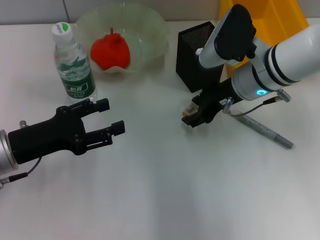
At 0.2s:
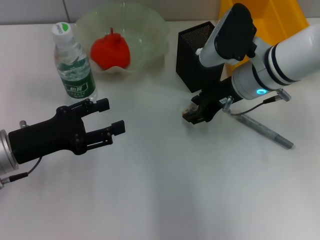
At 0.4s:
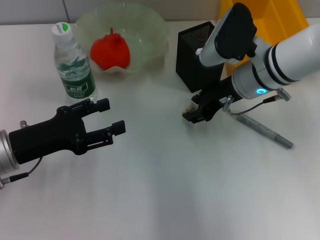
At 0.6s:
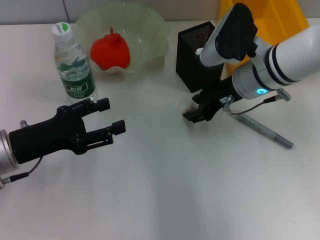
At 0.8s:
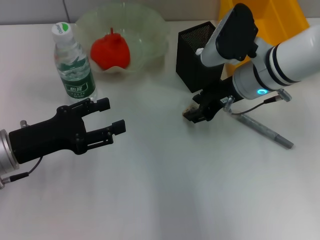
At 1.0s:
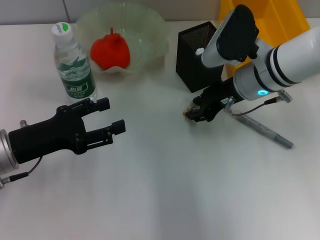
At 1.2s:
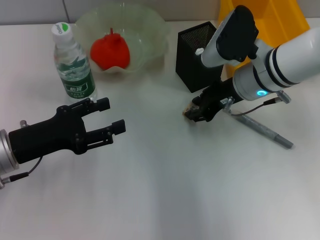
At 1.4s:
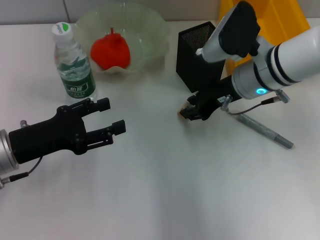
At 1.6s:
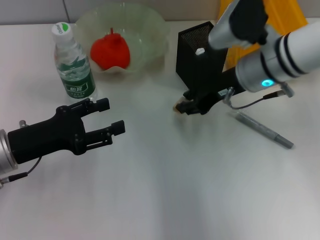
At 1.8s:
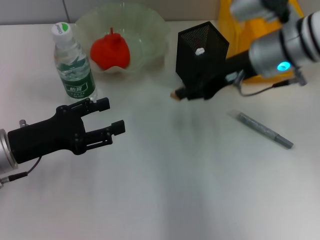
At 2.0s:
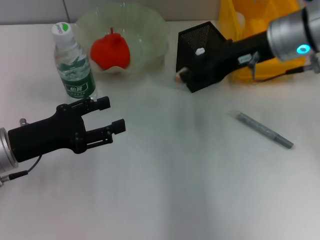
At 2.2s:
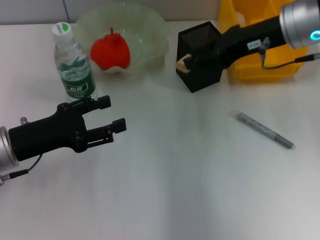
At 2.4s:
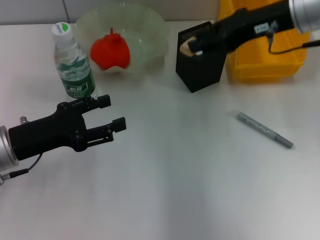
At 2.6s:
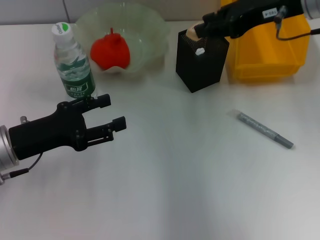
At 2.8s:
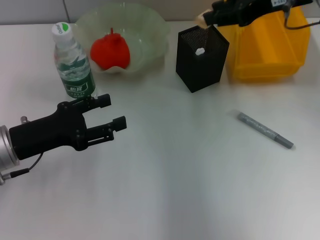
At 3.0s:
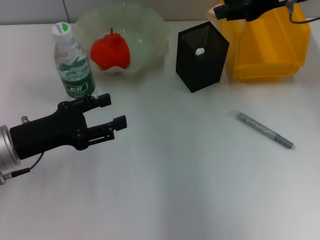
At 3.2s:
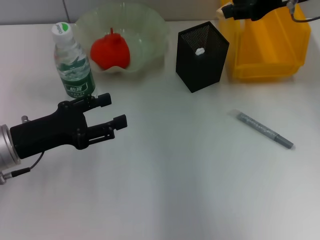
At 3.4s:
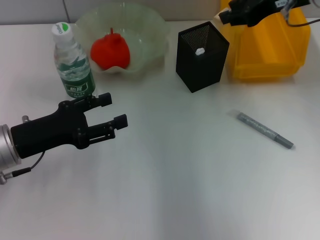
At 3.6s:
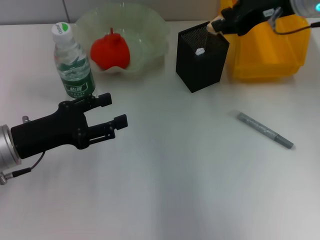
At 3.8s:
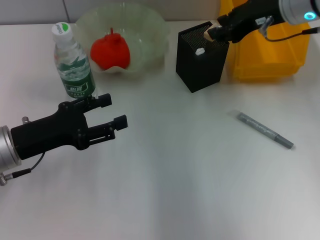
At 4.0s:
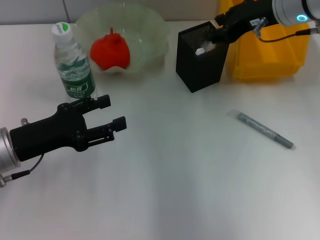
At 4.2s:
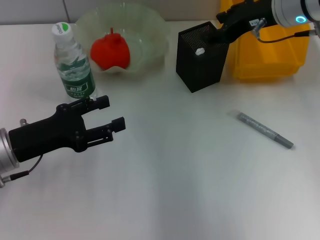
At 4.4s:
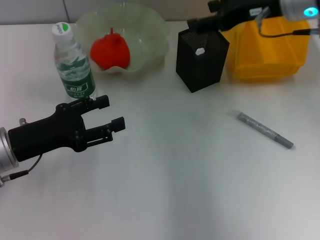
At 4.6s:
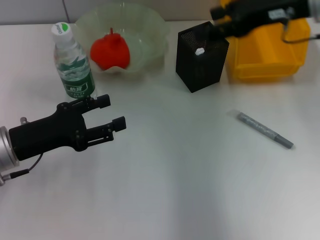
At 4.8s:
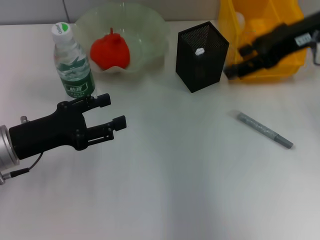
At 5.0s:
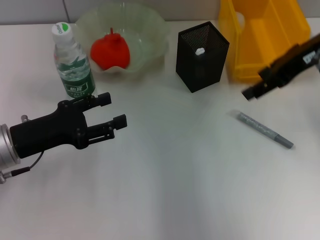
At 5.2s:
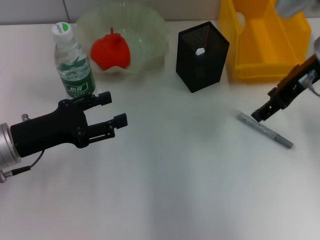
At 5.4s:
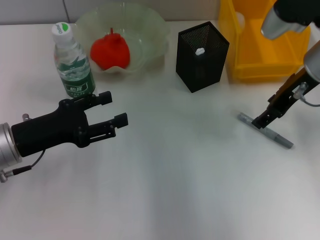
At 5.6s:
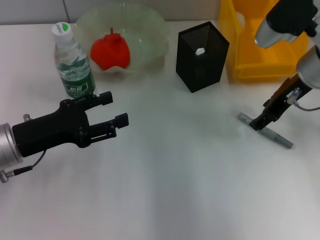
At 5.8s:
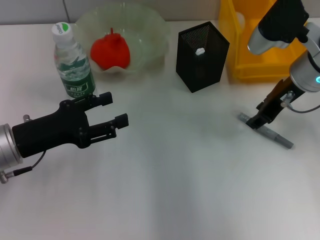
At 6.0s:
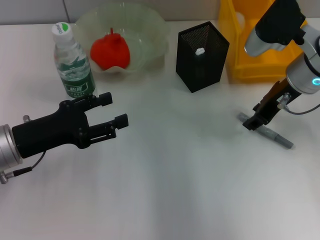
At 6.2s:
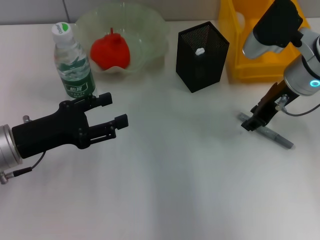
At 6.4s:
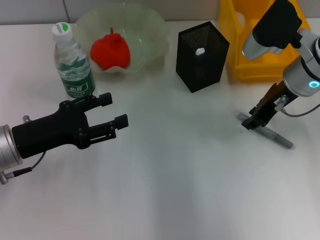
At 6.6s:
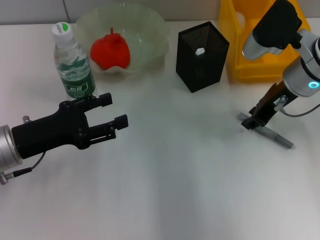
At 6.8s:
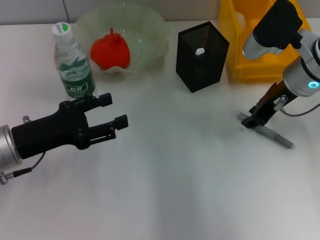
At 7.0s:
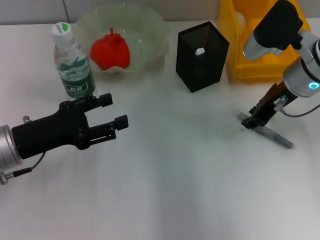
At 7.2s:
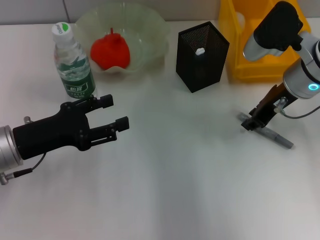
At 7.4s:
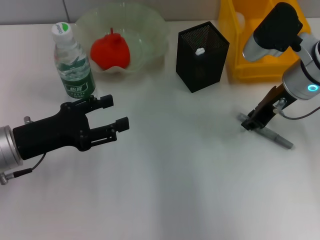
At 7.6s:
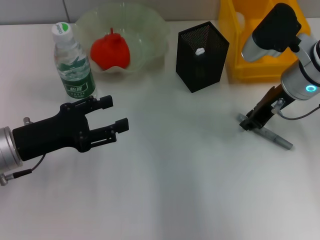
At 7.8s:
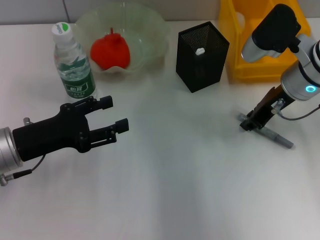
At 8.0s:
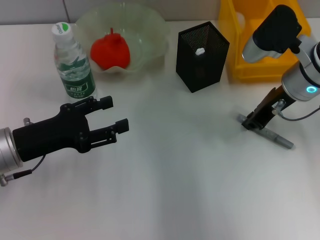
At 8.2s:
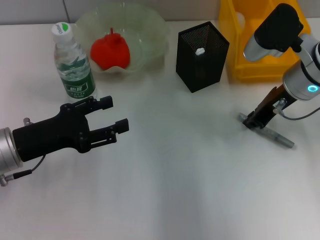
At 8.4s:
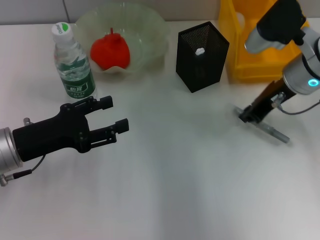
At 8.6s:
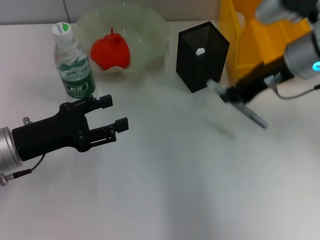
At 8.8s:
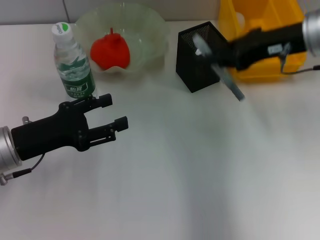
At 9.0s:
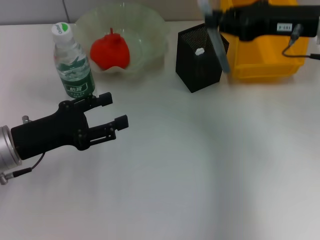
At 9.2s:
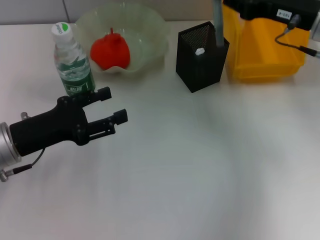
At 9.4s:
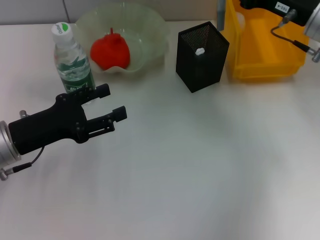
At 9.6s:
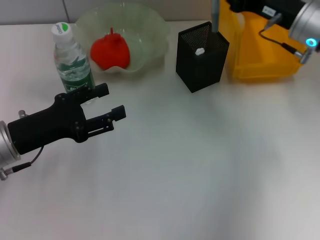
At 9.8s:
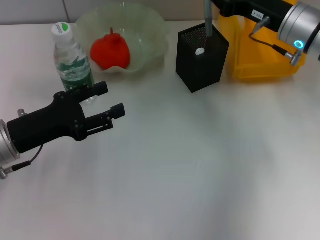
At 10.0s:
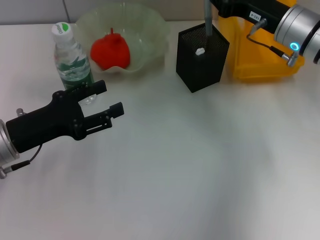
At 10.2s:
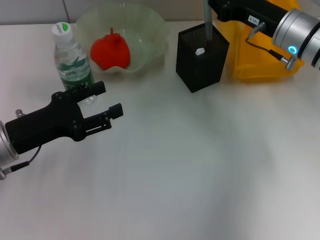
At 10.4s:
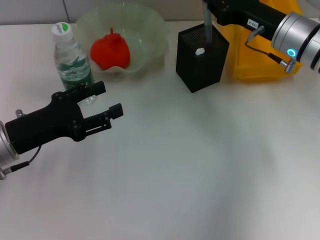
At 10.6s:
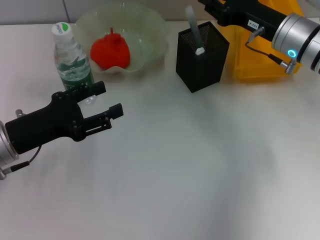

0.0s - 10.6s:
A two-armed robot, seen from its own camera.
Step, 1.4s - 4.0s: Put the eraser into the pen holder with the right hand.
Step, 4.2s - 8.0s: Grab the gray glue with the right hand.
0.0s - 1.6s: The right gripper closes up.
1.6s - 3.0s: The right gripper goes roughly 15 cm upward and to the right.
3.0s - 4.6s: The right gripper opens its fingers.
4.6s - 6.0s: The right gripper shifts some 10 cm downward, and closes up.
6.0s - 7.6s: Neither gripper changes place.
7.6s - 9.0s: The right gripper travels upward by about 5 cm.
9.0s - 10.6s: The right gripper heads downward, covering about 5 cm.

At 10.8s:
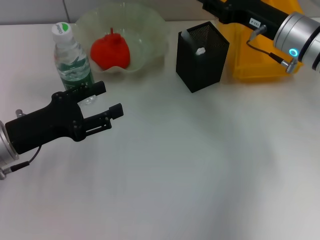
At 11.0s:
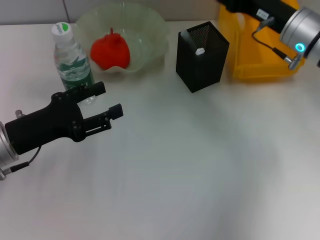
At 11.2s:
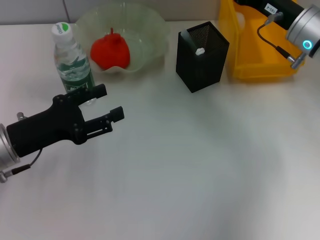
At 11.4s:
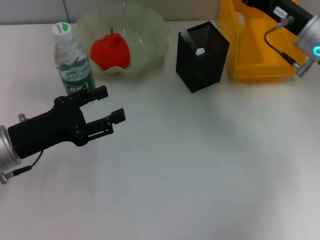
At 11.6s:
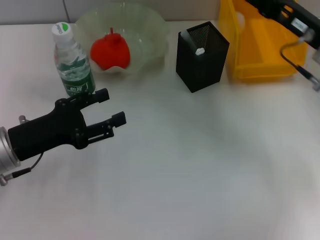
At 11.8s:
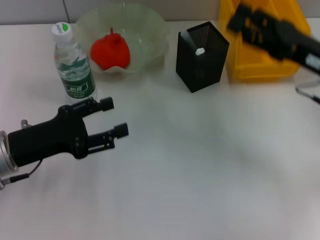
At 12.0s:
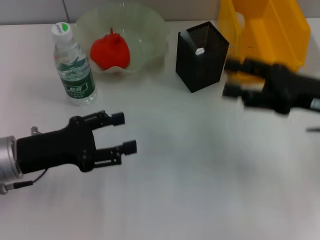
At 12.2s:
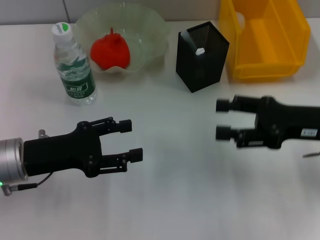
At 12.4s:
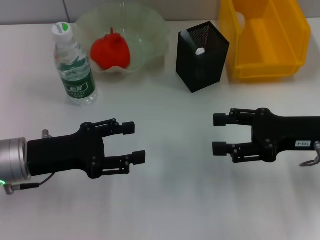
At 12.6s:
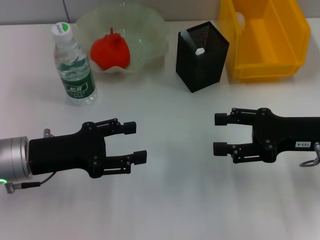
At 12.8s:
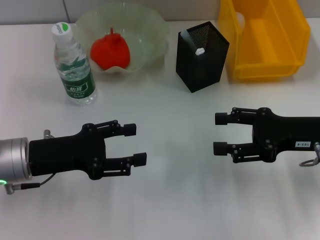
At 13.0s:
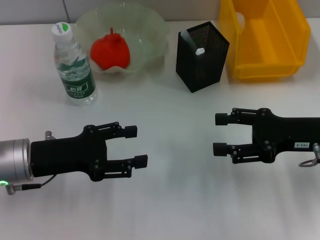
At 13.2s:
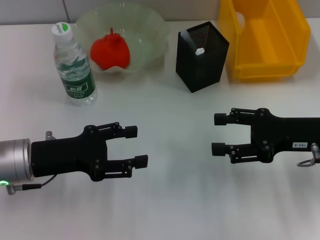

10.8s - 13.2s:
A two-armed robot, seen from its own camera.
10.8s - 12.0s: The right gripper shifts some 10 cm backward and to the right, and opens up.
12.0s - 13.2s: The grippers stay close to where they were, moving slightly.

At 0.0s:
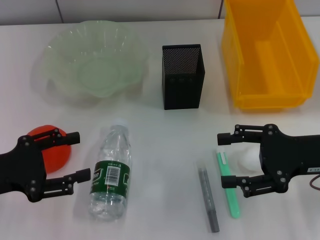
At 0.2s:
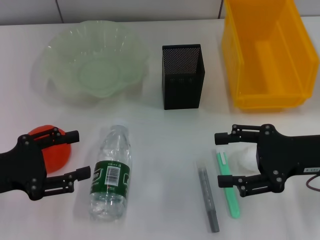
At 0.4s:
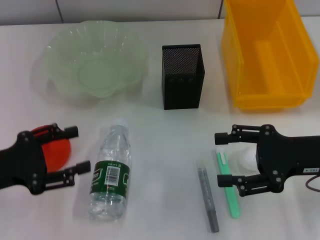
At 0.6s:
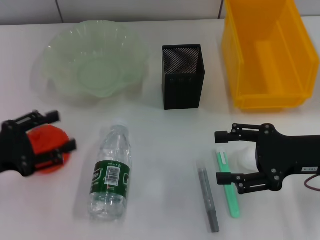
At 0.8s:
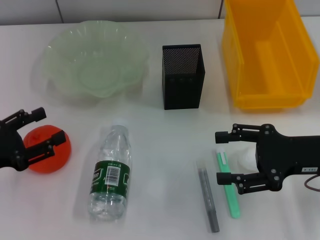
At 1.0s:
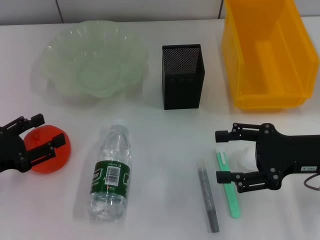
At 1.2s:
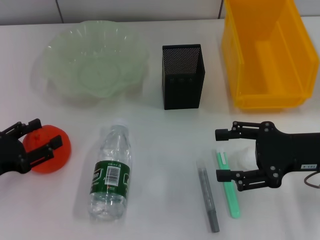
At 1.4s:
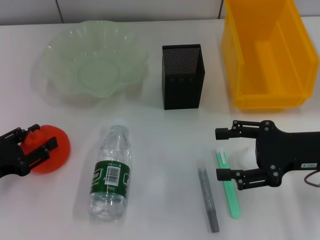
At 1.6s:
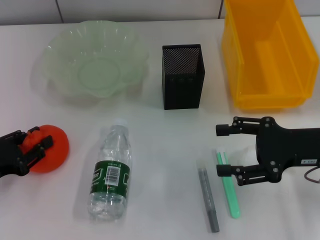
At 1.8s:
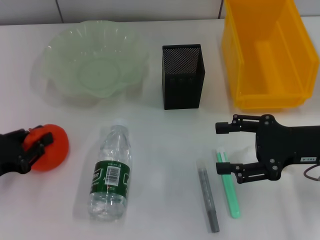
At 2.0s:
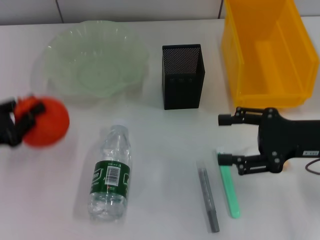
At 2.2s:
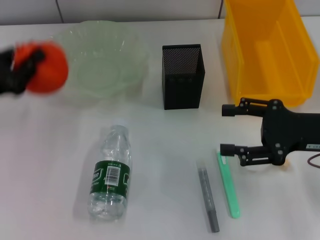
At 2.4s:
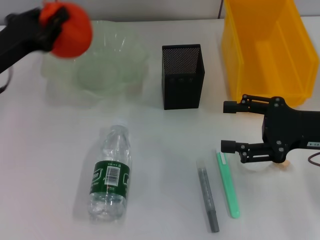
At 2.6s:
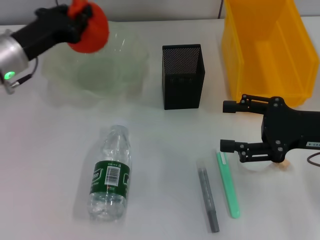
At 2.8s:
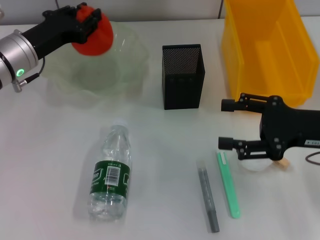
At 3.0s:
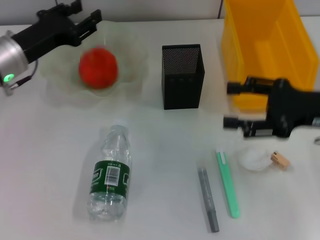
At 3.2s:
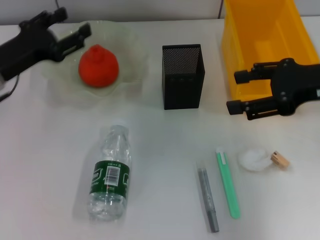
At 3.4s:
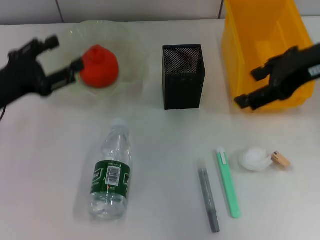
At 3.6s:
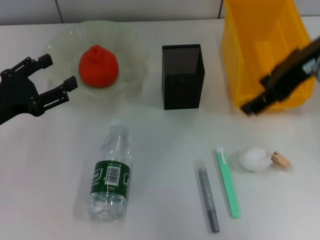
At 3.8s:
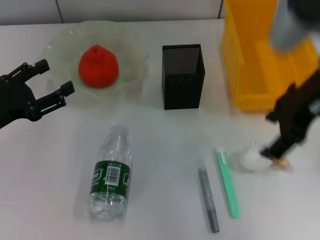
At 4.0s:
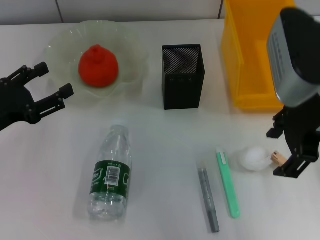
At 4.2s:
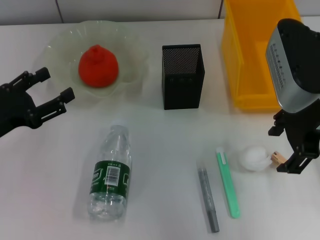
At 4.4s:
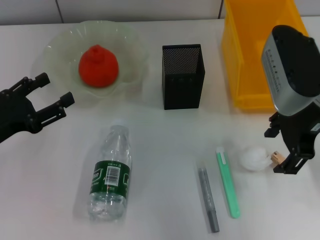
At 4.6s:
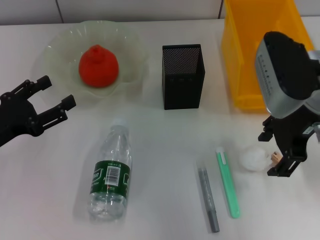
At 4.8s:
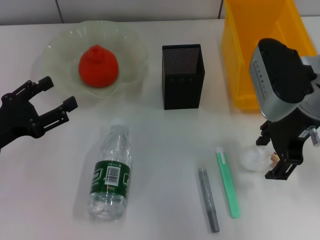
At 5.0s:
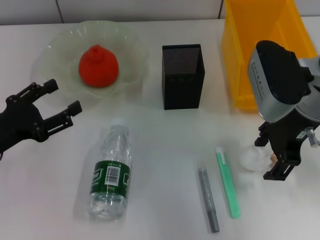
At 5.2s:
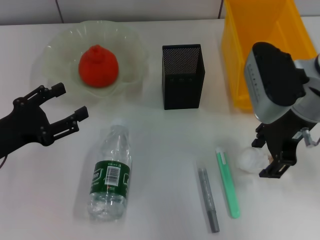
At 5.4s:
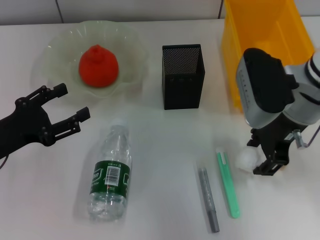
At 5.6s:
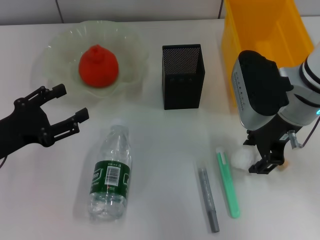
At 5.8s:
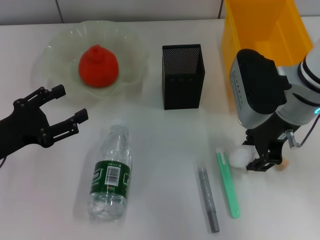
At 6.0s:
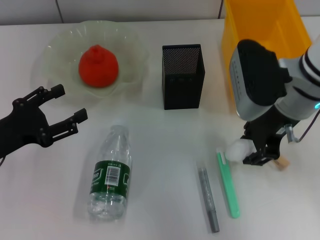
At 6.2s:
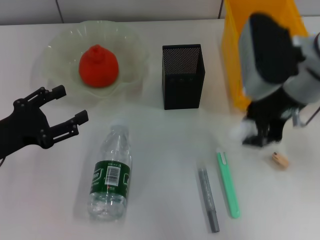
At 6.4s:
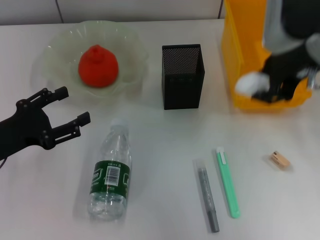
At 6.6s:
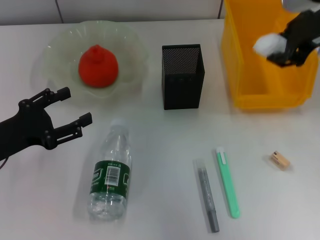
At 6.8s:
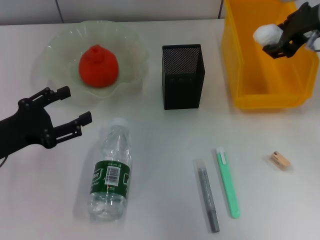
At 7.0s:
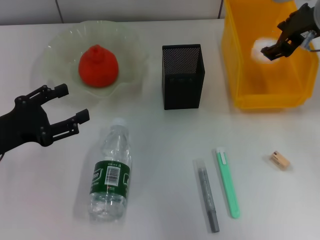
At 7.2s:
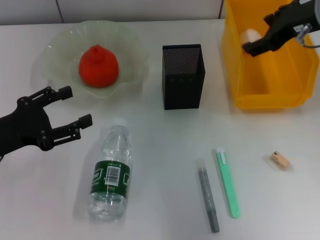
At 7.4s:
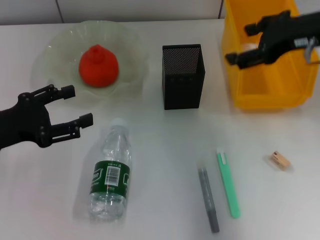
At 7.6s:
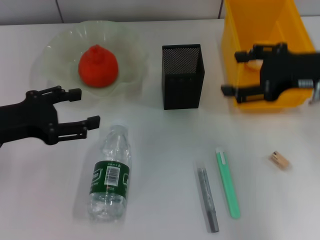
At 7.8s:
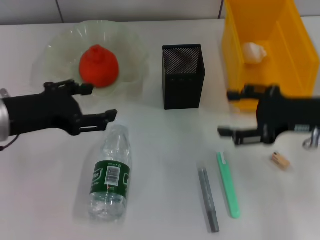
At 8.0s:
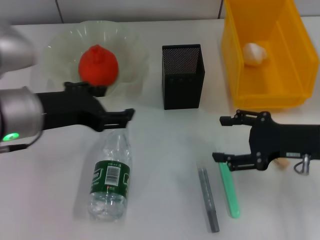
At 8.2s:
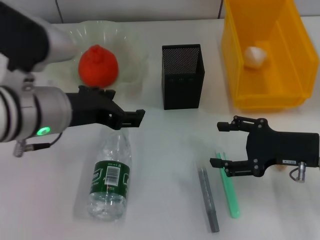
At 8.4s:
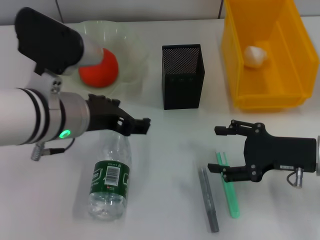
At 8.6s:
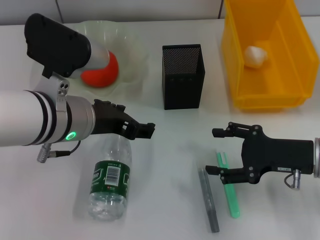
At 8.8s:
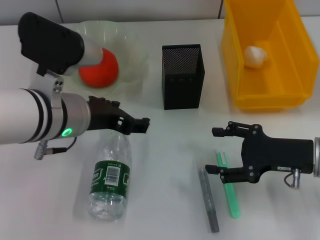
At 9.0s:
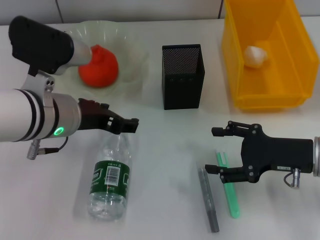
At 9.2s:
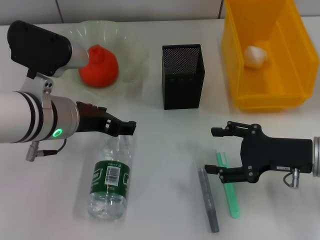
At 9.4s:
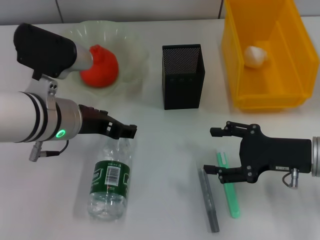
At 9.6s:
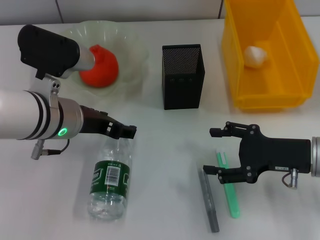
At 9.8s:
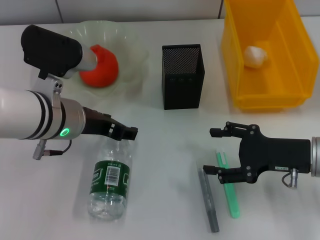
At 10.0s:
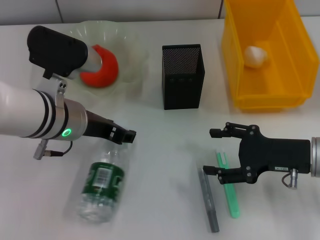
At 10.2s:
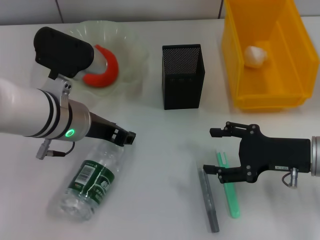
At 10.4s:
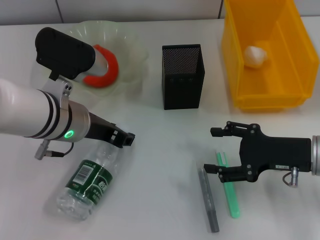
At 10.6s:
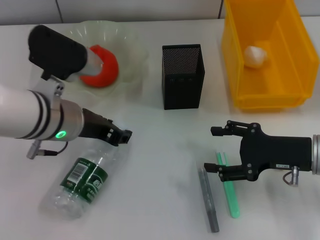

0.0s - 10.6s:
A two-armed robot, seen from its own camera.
Step, 0.0s - 1.6s: Grab the orange with the left hand.
Step, 1.8s - 3.2s: Place the orange into the fruit bowl with the left hand.
Step, 3.4s - 5.6s: Grab the paper ball with the right hand.
Step, 5.8s - 7.2s: Place the paper ball into the trash can with the right hand.
Step, 7.4s - 10.4s: Grab the water bottle with the left hand.
0.0s - 1.6s: The left gripper travels downward by some 5 cm, and closes up.
1.6s - 3.0s: The left gripper moves forward, to the right and upward, approximately 20 cm, and closes, then reopens.
3.0s - 4.6s: The right gripper moves to the left, about 10 cm, and reaches approximately 10 cm upward, then returns. Meanwhile the left gripper travels backward and to the left by about 15 cm, and opens its fingers.
4.6s - 6.0s: The right gripper closes its fingers.
6.0s - 7.6s: The right gripper shifts roughly 10 cm to the right, and opens up; the left gripper heads upward, covering roughly 5 cm.
7.6s - 9.0s: The right gripper moves downward, roughly 10 cm. The left gripper shifts approximately 15 cm to the right.
9.0s - 10.6s: The left gripper closes its fingers.
